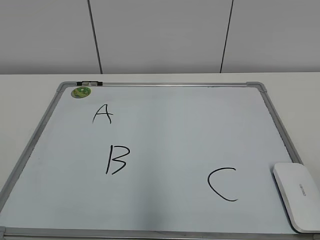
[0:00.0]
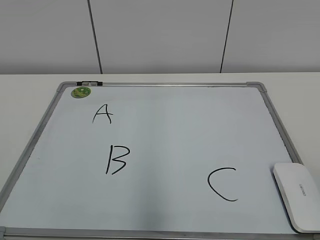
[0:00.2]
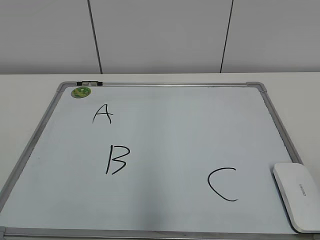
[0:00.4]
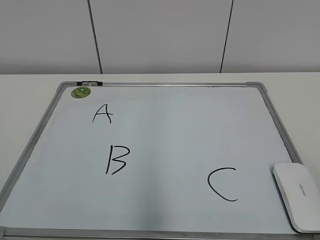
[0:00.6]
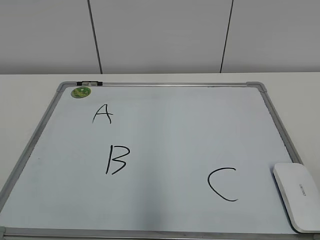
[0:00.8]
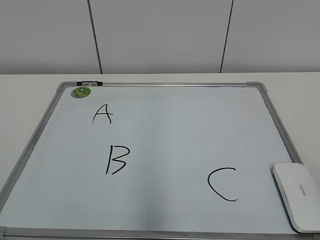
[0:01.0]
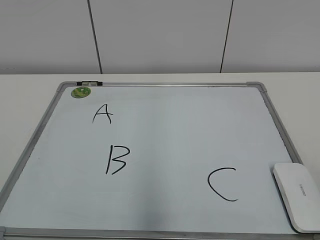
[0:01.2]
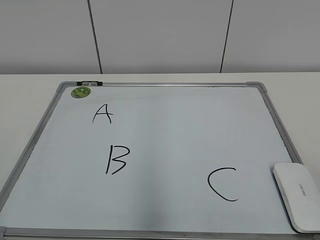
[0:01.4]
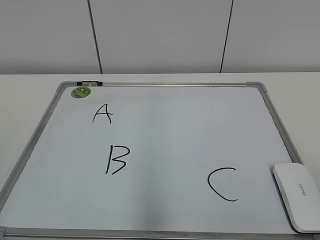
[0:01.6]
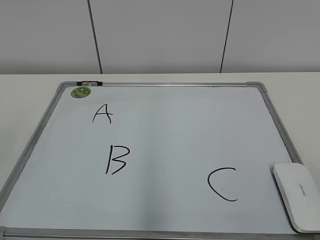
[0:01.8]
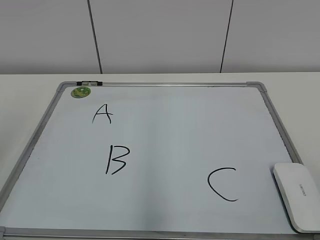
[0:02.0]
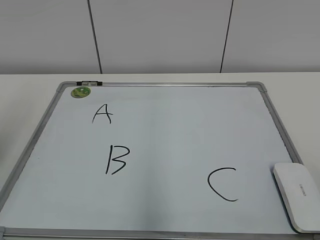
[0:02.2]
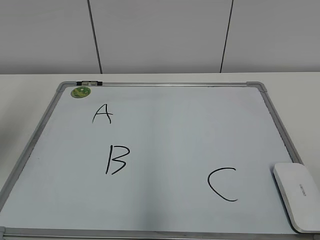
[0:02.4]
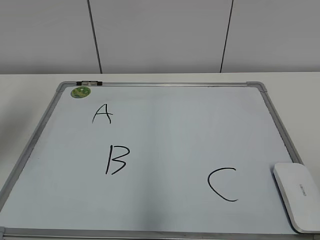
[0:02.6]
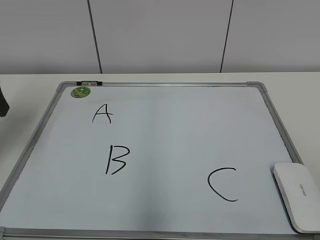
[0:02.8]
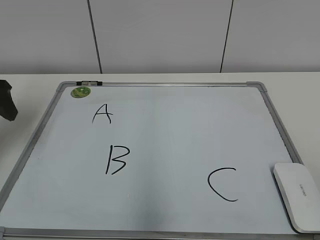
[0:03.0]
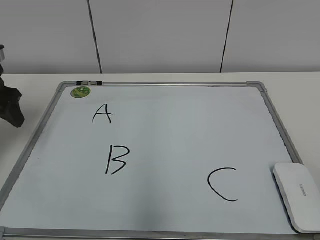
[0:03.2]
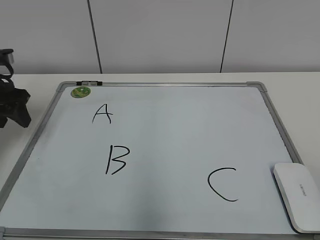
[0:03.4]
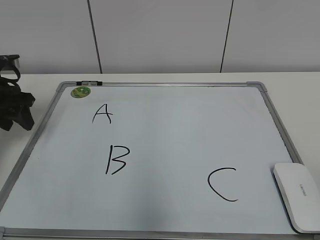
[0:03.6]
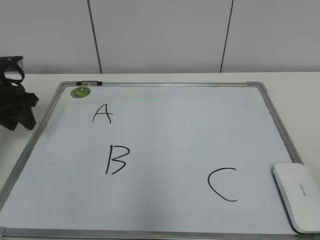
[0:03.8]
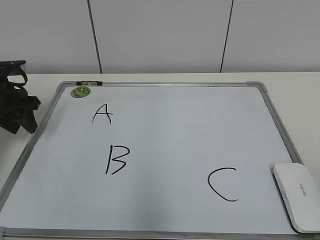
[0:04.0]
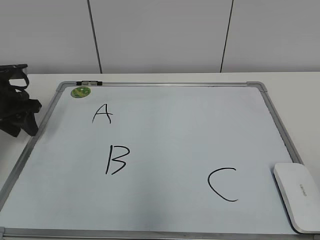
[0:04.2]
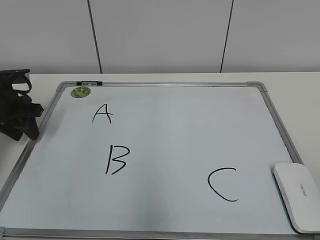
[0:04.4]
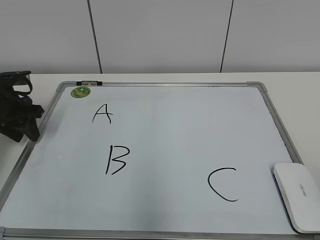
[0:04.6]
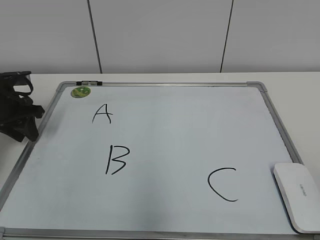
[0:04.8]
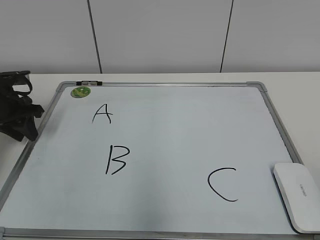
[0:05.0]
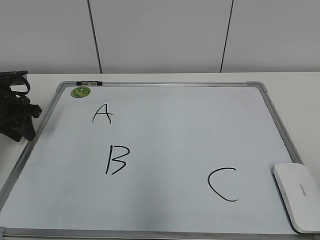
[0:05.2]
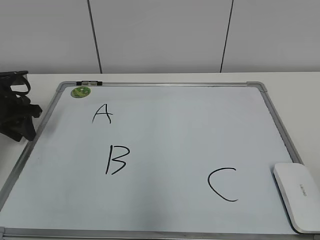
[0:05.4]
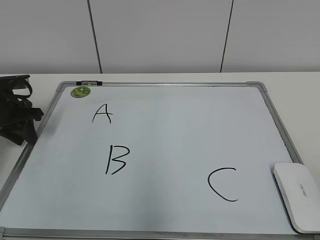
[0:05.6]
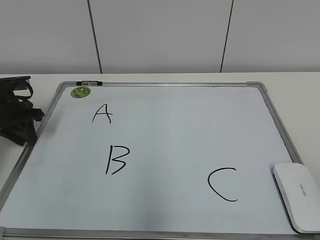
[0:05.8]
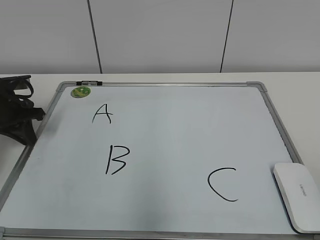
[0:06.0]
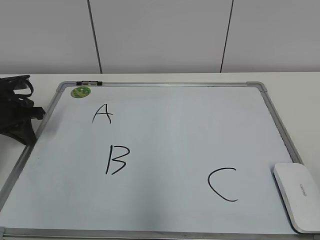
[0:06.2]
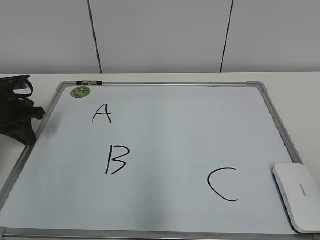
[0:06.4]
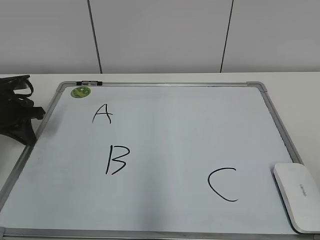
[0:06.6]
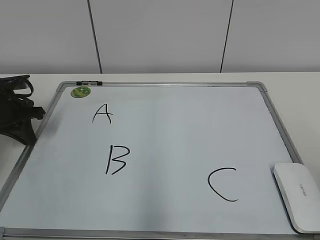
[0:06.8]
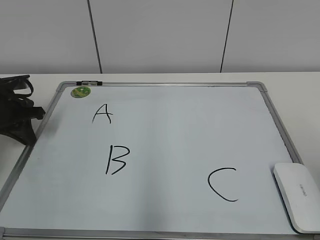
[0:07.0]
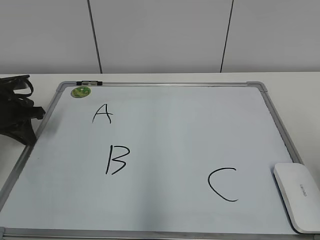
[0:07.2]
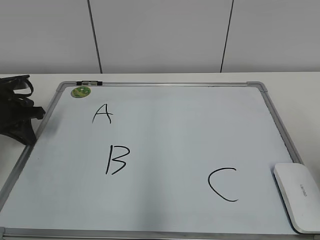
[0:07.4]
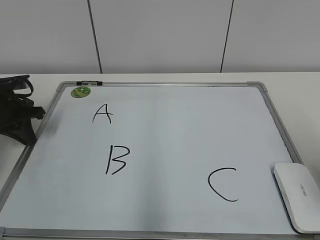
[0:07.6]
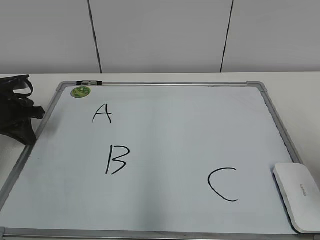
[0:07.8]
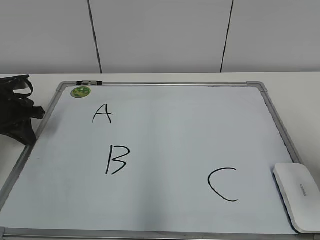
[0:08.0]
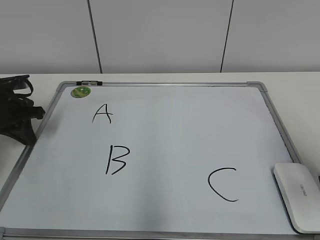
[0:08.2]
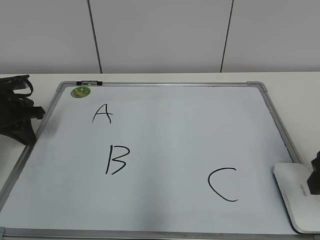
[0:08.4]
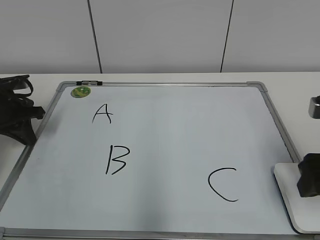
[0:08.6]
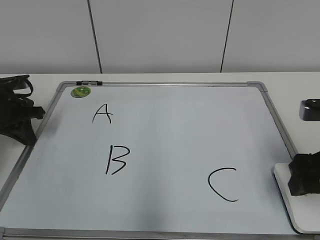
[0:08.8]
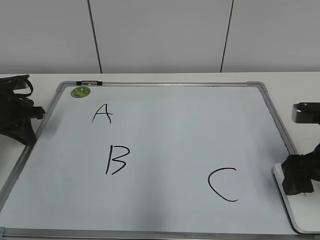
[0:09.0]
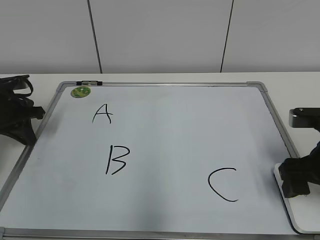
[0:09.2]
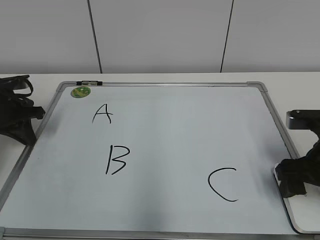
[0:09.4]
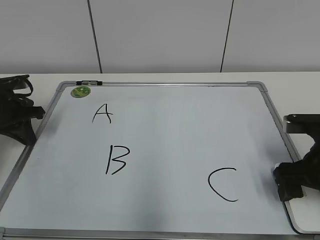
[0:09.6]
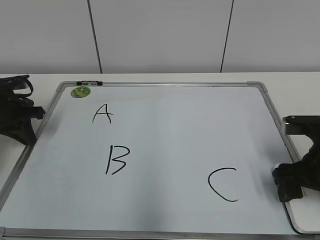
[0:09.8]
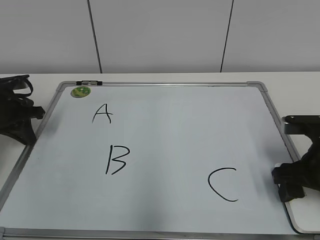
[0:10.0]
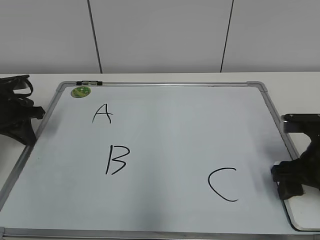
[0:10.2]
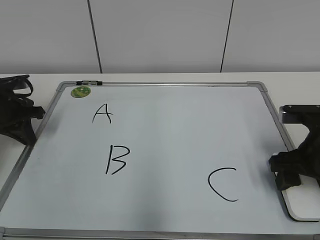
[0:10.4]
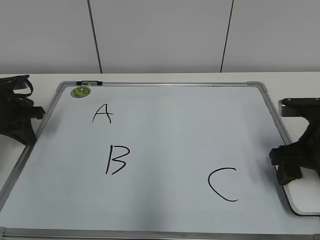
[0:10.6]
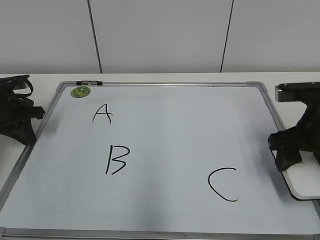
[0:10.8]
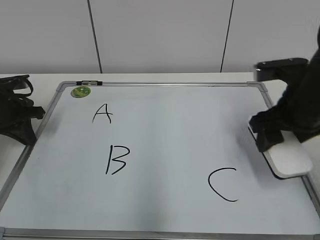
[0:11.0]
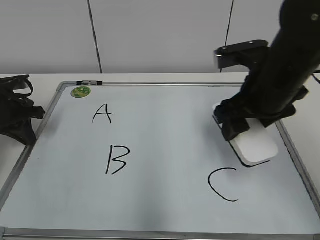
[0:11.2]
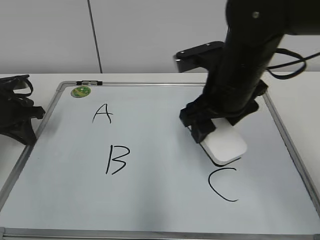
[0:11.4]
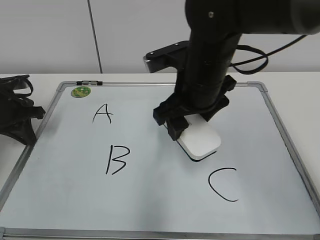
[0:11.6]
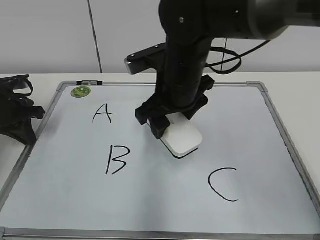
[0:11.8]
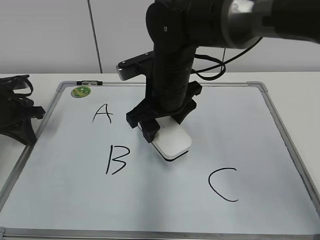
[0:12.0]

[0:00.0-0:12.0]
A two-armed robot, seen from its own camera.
Task of the whole recording: pick up the eraser on the blackboard and erase the letter "B".
Step, 0:00.0 to 0:06.2: Hold the drawing board steady with your left hand.
Step, 0:06.4 to 0:09.8: Grab the eraser with your right hand.
0:01.6 to 0:03.0: The left gripper goes approximately 30 cm forward.
0:03.0 to 0:04.4: The left gripper goes some 10 cm downward and forward, and closes.
0:04.4 to 0:06.0: The left gripper closes up.
0:07.6 to 0:09.0: The right gripper is displaced downward and forward by about 10 cm, and opens.
0:09.0 to 0:10.4: The right gripper closes.
0:10.4 to 0:12.0: The right gripper moves to the left, roughly 20 cm.

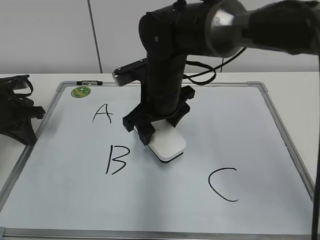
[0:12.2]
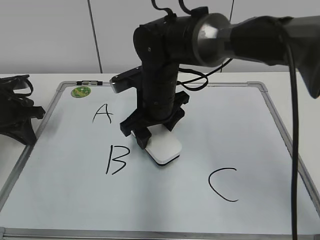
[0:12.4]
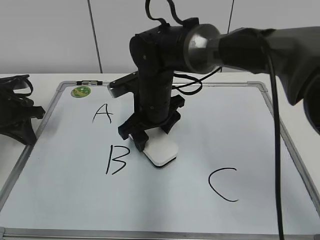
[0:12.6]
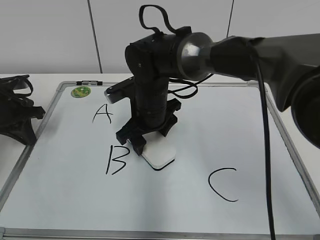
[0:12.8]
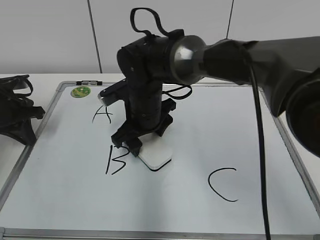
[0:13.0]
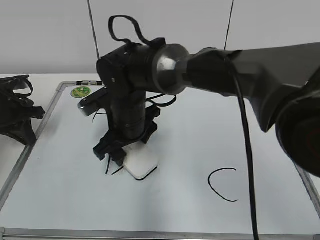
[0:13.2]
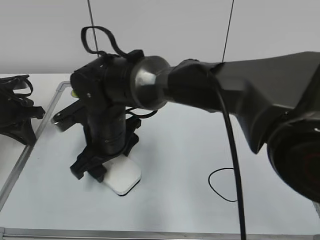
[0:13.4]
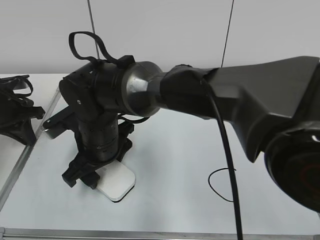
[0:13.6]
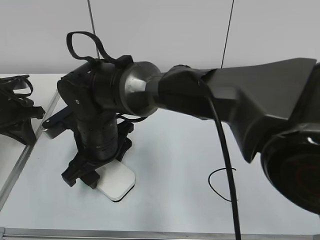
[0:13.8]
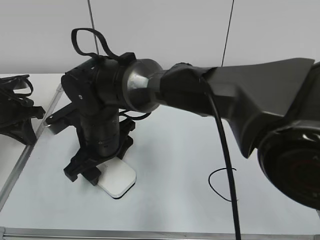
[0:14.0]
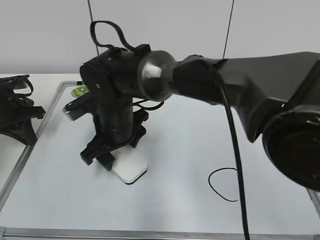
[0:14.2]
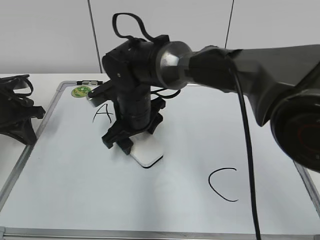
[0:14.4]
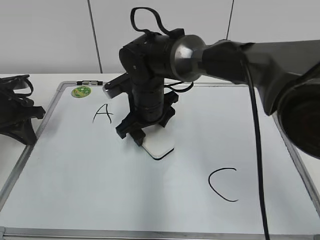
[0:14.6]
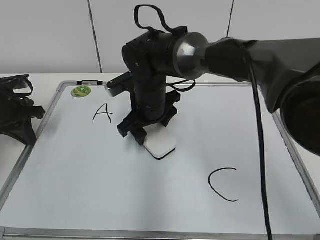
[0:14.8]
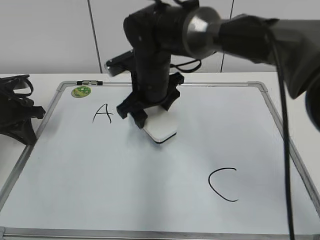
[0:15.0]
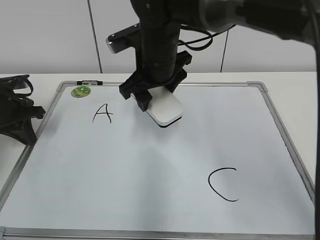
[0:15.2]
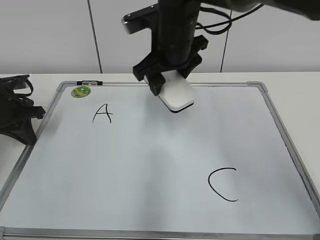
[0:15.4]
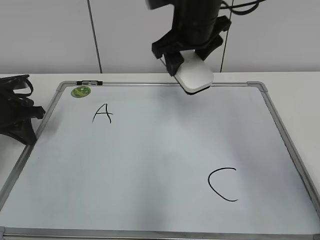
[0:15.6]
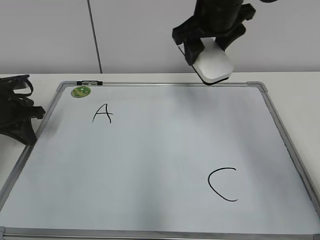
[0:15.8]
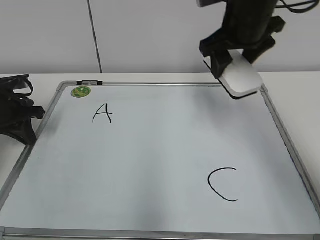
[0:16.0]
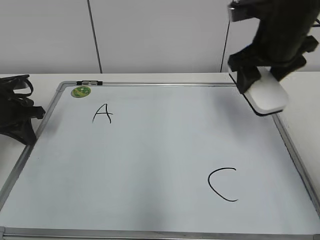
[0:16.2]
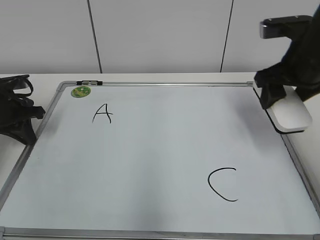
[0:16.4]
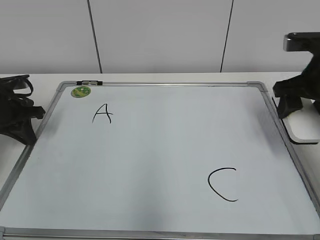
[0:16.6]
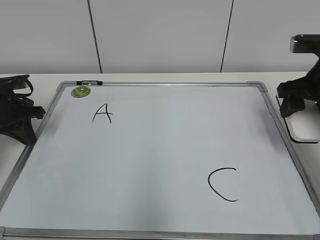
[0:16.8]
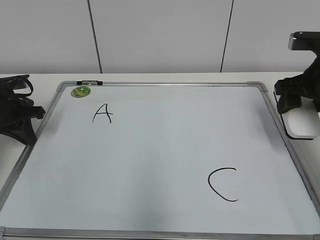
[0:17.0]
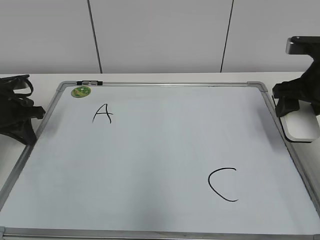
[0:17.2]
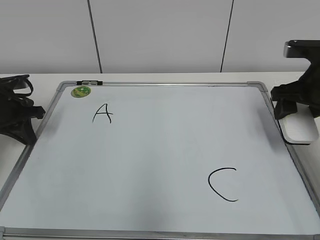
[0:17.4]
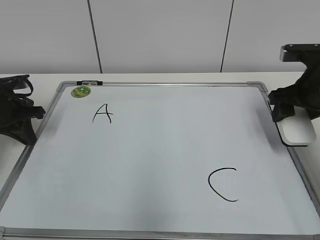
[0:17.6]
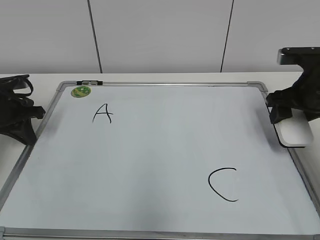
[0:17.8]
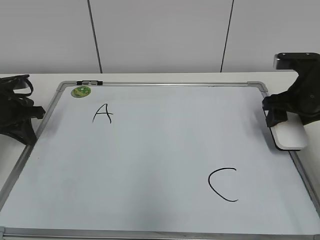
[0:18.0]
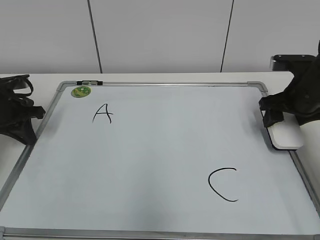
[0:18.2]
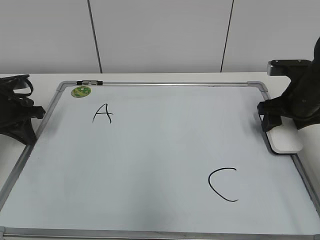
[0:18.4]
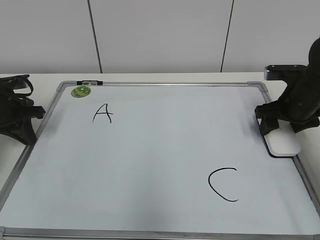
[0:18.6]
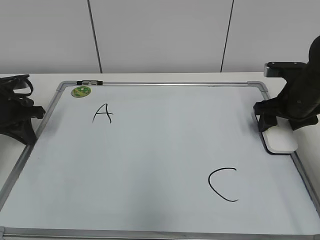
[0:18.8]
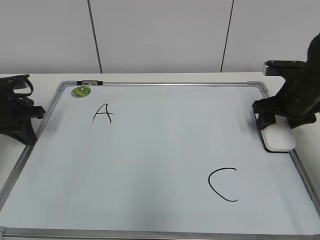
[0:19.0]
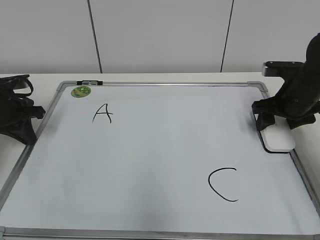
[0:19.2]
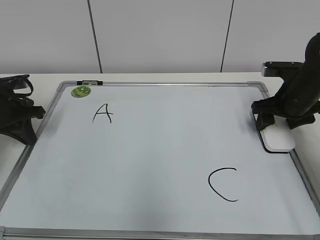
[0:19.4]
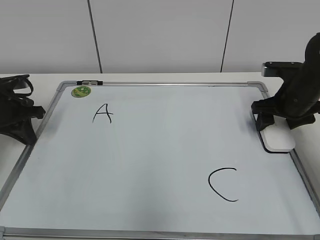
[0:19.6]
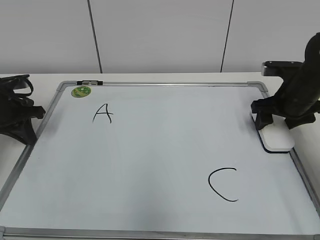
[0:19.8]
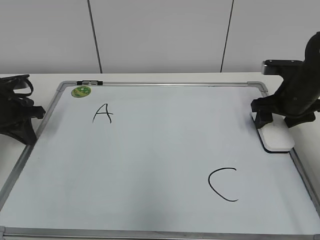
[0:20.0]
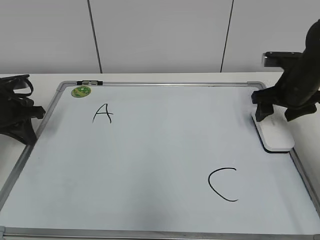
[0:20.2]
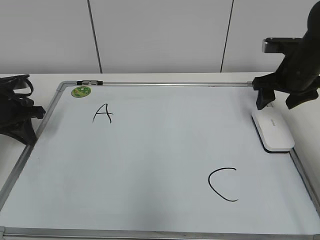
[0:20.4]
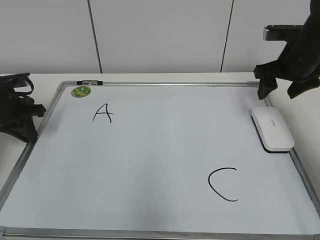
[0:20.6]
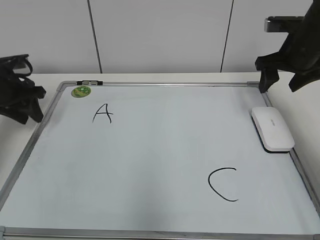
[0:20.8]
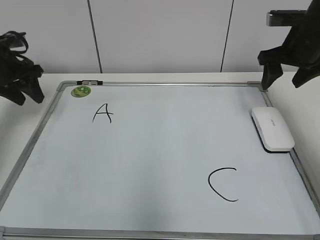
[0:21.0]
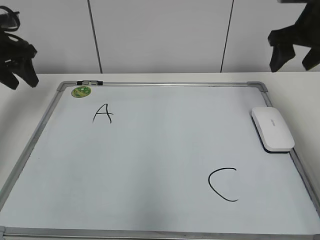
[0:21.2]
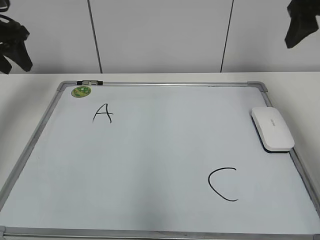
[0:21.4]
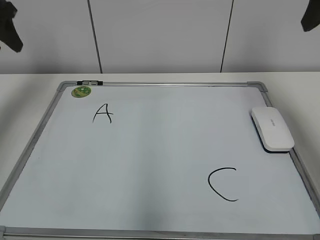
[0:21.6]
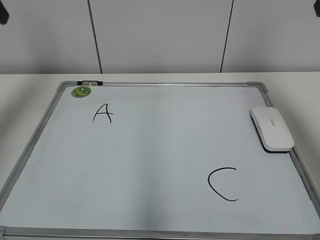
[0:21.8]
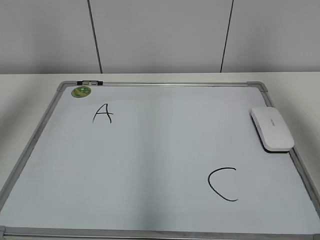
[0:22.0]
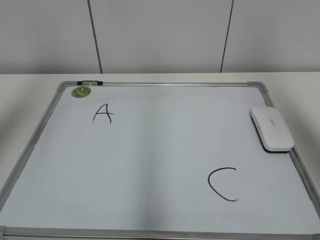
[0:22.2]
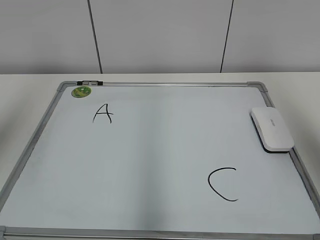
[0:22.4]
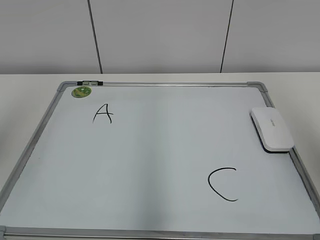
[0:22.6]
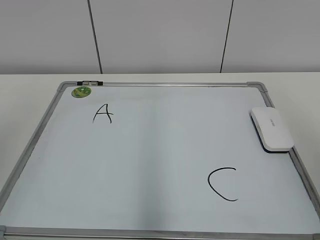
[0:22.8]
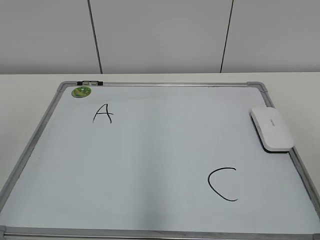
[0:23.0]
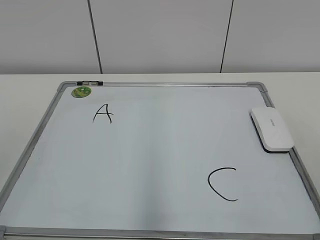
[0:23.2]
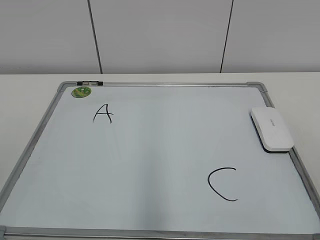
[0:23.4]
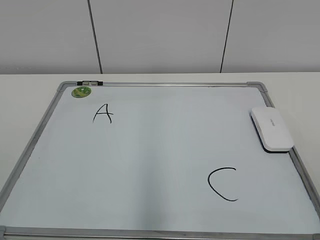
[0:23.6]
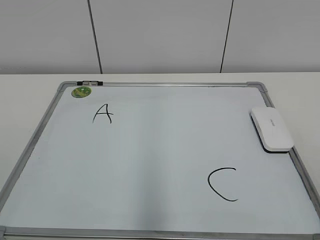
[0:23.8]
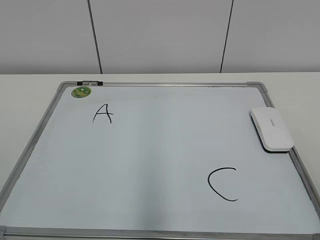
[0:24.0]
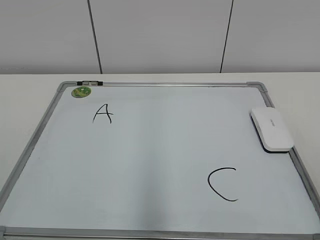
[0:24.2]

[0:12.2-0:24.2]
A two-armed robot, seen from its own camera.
Task of the whole recording: pick up the eraser on the blackboard and erase the letter "B".
Step, 0:12.2 to 0:14.6: Erase the letter B with your right hand.
Step, 0:15.0 to 0:20.0: Put down the eraser with your right hand.
0:12.2 to 0:13.8: The right gripper heads to the left, downward and backward, covering roughly 15 cm.
0:13.8 to 0:15.2: The right gripper is displaced to the right, upward and forward by some 15 cm.
0:15.2 to 0:16.6: The right gripper shifts some 25 cm to the right.
0:16.6 to 0:18.2: The right gripper shifts approximately 5 cm downward.
0:18.2 to 0:19.8: The right gripper opens up.
0:19.8 to 0:21.2: The two grippers go roughly 10 cm upward. The left gripper opens up.
0:21.2 to 0:22.6: Both grippers travel together backward and upward, some 30 cm.
0:22.6 to 0:24.2: The right gripper moves downward and backward, approximately 20 cm.
